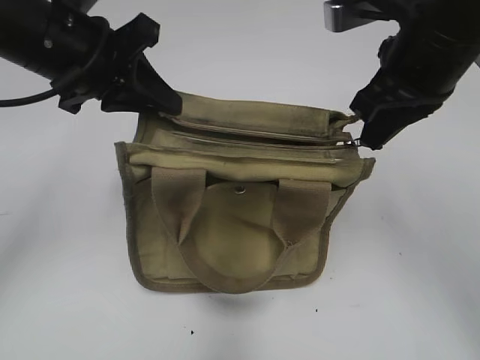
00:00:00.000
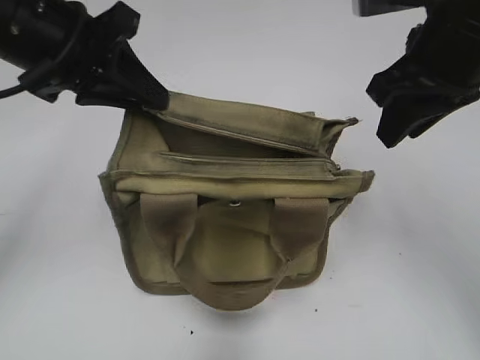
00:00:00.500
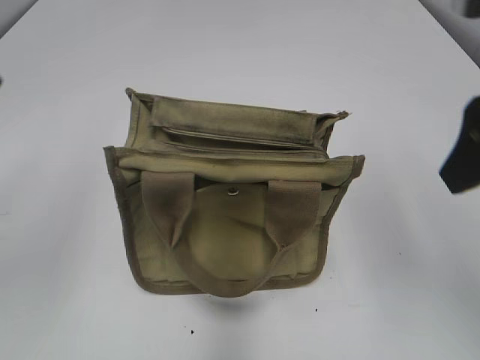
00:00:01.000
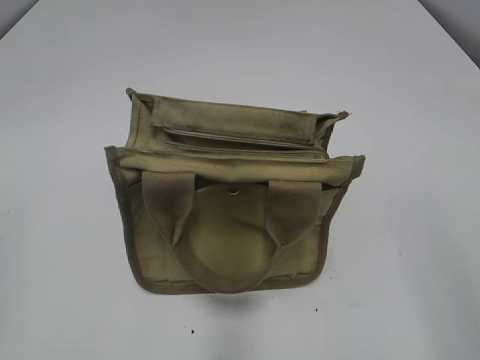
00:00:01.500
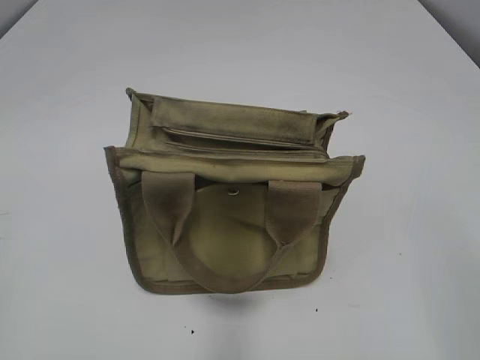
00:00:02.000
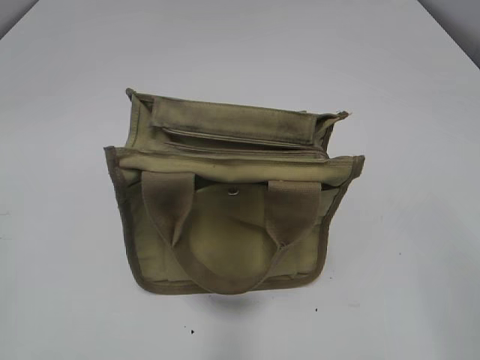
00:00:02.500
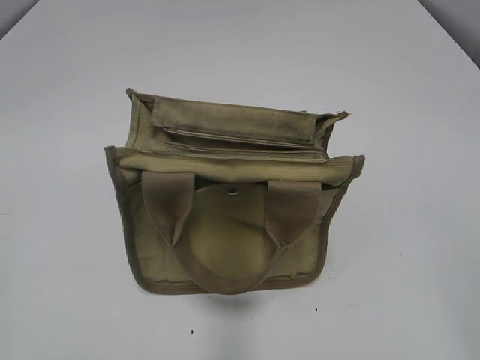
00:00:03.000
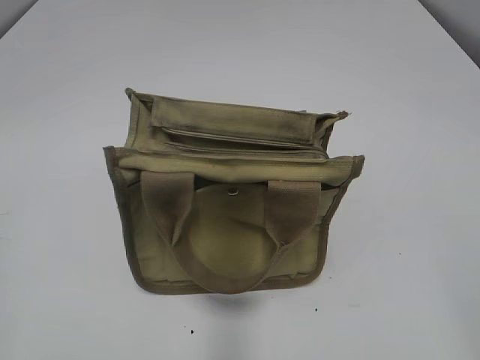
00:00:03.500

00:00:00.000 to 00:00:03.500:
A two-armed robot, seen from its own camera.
00:00:00.000 to 00:00:02.000: The right gripper travels backward and to the right by roughly 30 cm, and opens its fingers, while the left gripper heads backward and to the left, covering roughly 35 cm, and opens.
